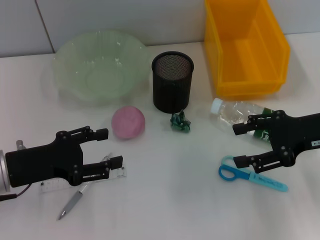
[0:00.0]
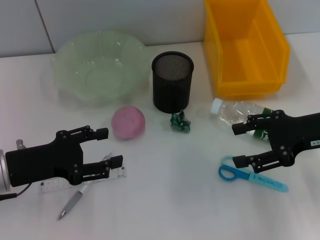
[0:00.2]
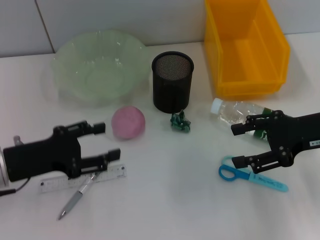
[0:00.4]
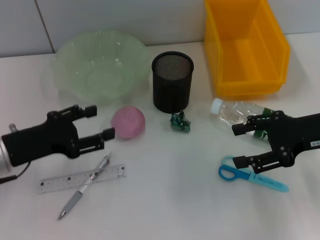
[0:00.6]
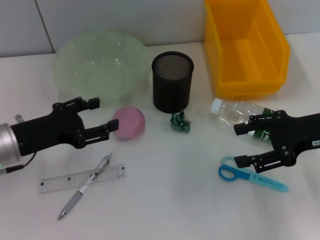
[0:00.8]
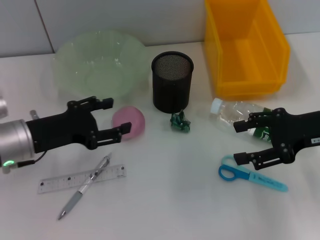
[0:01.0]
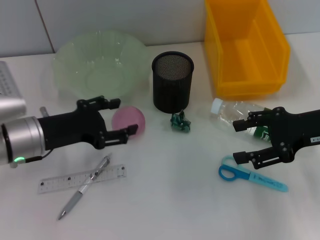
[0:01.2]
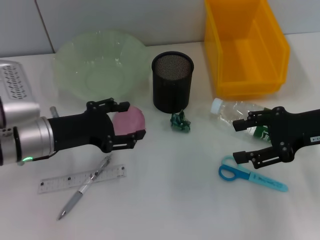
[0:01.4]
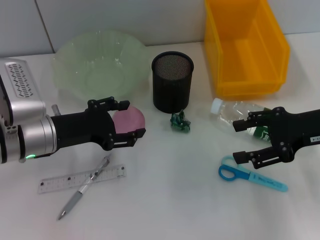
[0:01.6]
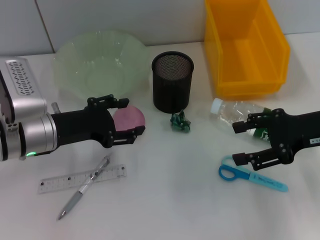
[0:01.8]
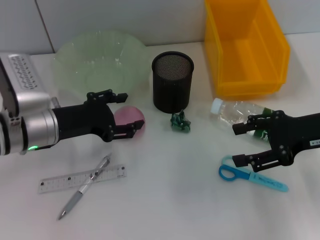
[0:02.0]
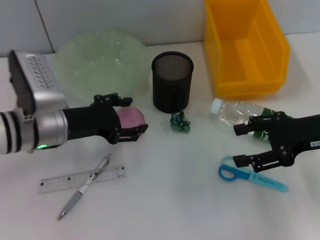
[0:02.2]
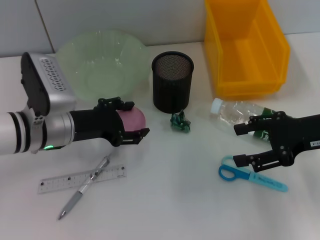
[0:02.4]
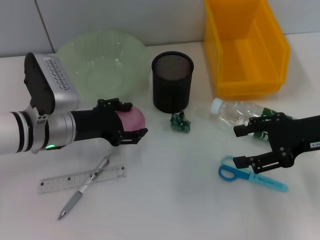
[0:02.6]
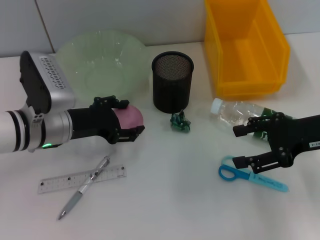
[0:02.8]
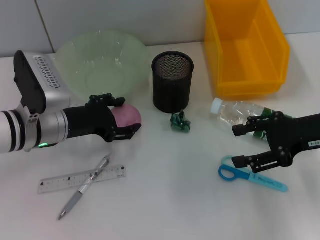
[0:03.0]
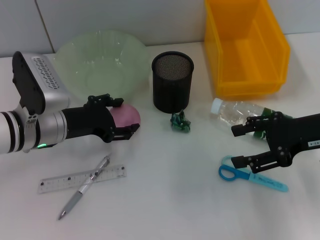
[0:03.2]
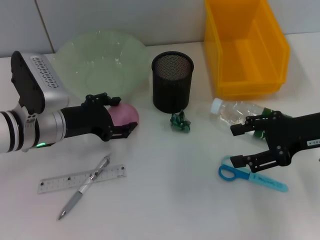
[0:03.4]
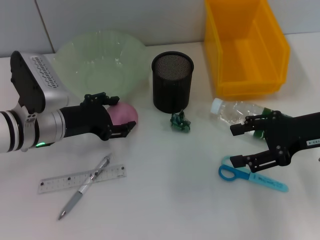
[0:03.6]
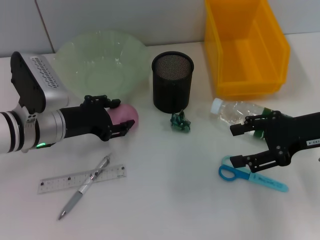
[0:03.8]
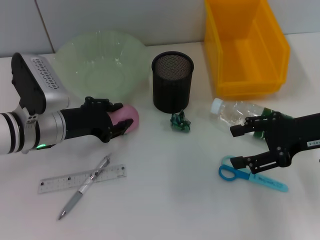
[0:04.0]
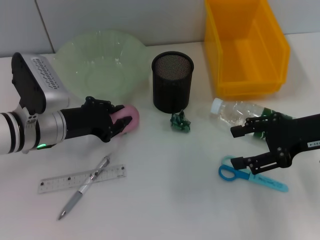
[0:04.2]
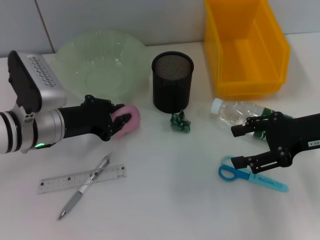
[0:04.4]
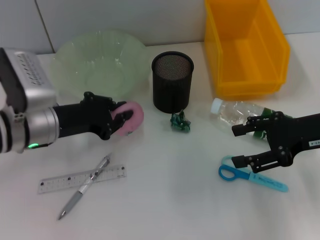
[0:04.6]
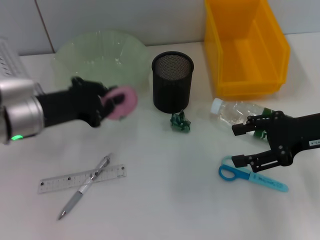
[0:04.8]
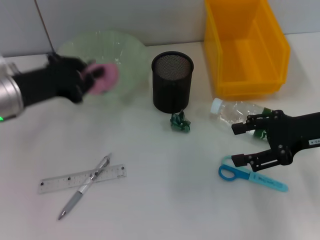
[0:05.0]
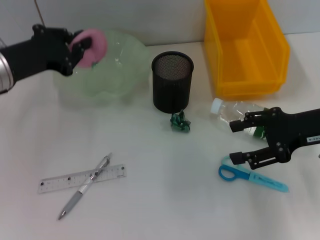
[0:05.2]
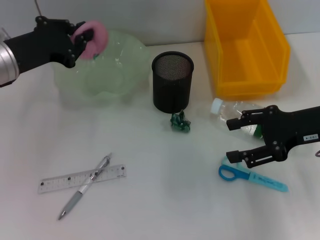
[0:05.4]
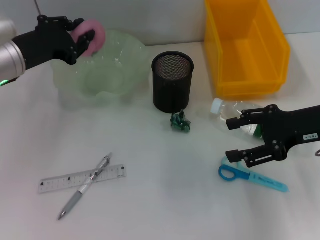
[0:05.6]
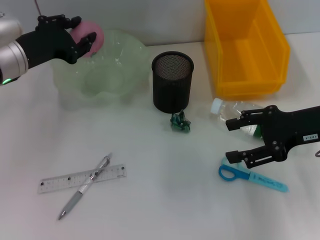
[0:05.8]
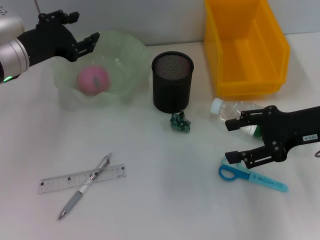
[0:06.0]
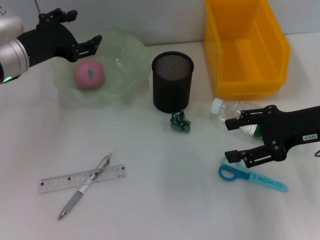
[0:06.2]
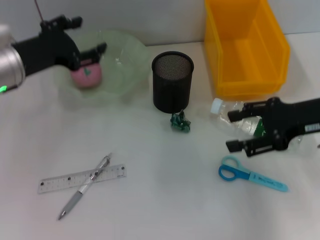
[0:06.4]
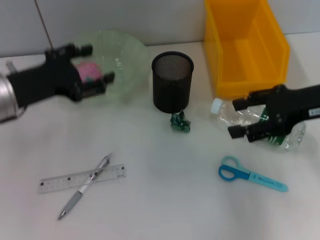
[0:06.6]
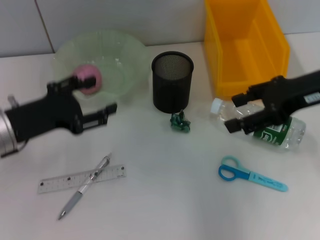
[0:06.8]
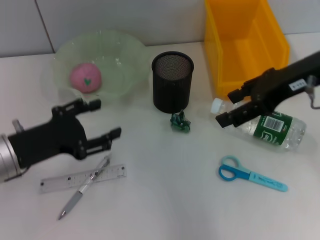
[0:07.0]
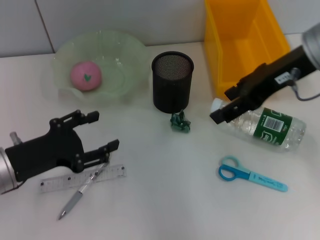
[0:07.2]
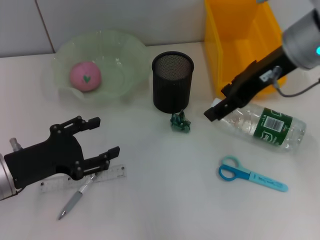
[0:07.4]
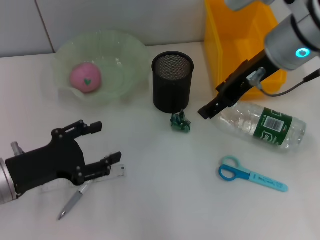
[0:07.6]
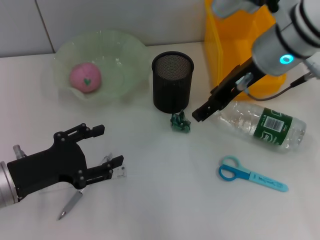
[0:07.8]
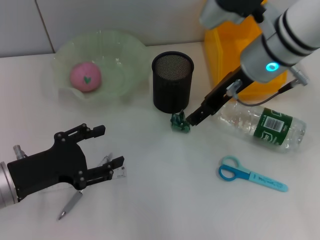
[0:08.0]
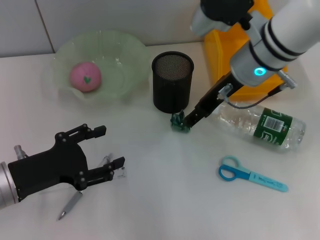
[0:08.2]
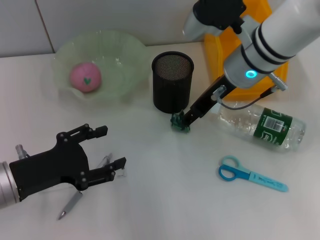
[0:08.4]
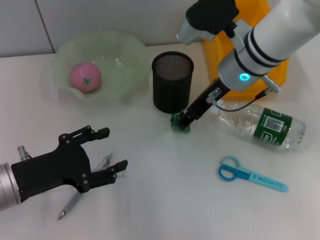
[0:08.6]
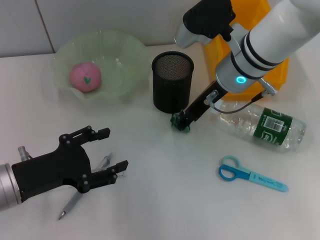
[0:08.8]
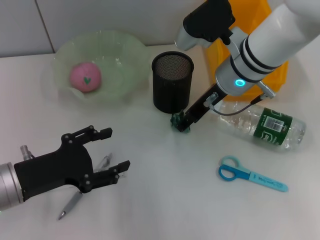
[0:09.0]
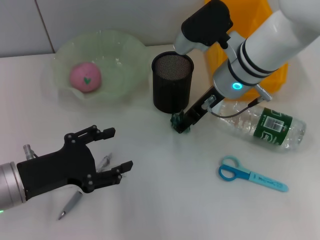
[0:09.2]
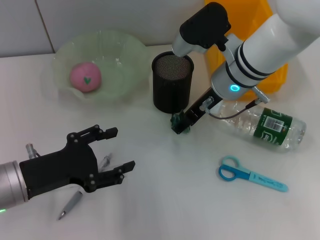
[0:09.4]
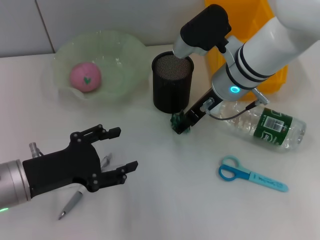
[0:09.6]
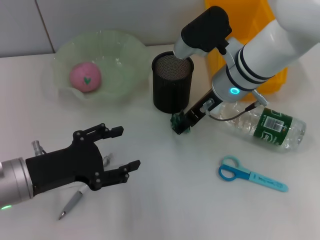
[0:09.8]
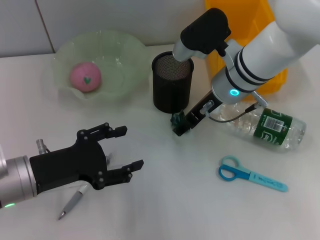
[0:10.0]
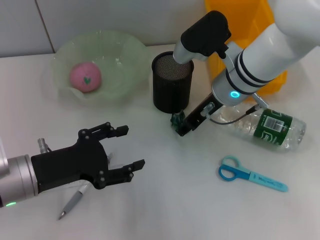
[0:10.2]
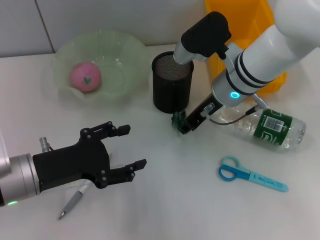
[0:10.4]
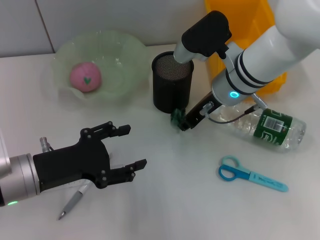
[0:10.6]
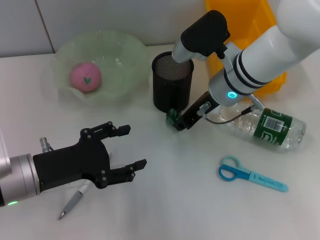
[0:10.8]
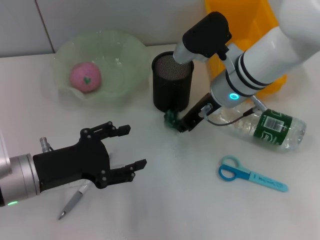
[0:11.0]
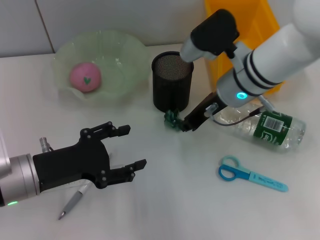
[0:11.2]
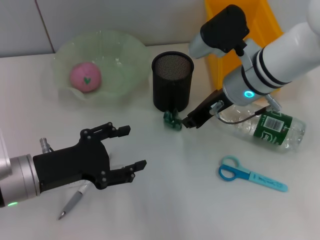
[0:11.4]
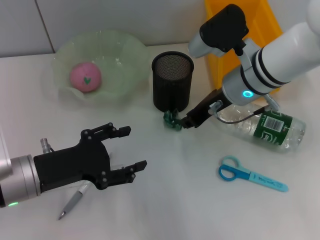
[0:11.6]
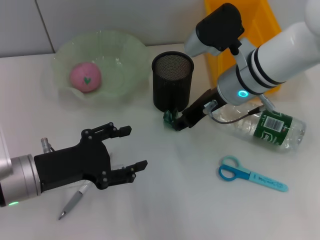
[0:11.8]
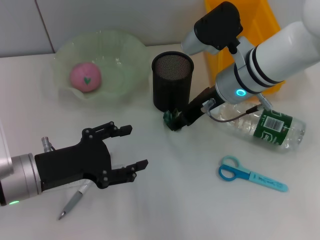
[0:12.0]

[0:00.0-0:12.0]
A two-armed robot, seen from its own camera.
Step, 0:00.0 to 0:04.2: Grab the peach with the left hand.
Step, 0:04.4 to 0:05.8: Place the peach into the fruit bowl with the left hand.
0:00.0 to 0:01.6: The left gripper moves forward and to the right, some 10 cm.
0:01.6 to 0:03.0: The grippers stay close to where they were, moving slightly.
0:03.0 to 0:04.4: The left gripper closes its fingers.
0:04.4 to 0:06.0: The left gripper goes some 10 cm upward and forward.
0:06.0 to 0:07.6: The right gripper moves to the left, upward and forward, roughly 15 cm, while the left gripper shifts approximately 15 cm backward and downward, and opens up.
0:07.6 to 0:09.0: The right gripper goes about 10 cm downward.
0:09.0 to 0:10.4: There are only small adjustments of the grippers.
0:10.4 to 0:12.0: The right gripper closes, then reopens.

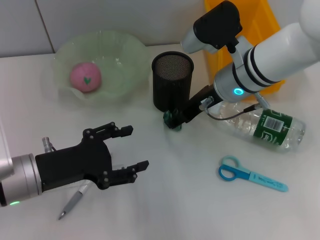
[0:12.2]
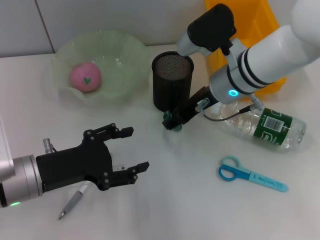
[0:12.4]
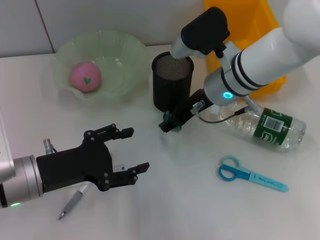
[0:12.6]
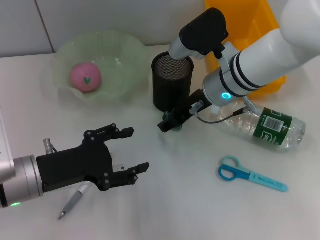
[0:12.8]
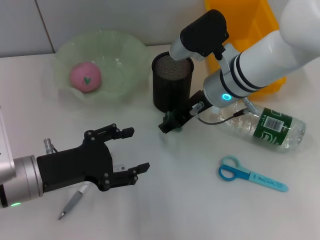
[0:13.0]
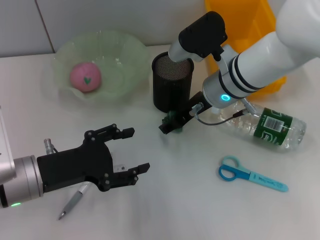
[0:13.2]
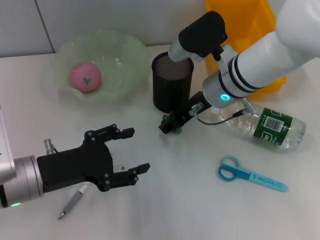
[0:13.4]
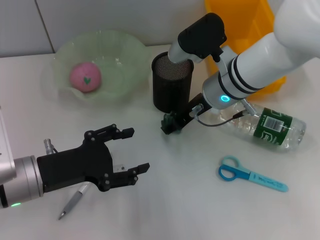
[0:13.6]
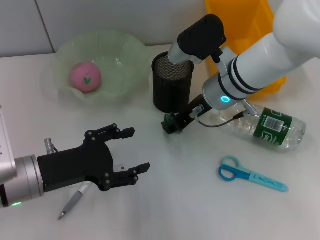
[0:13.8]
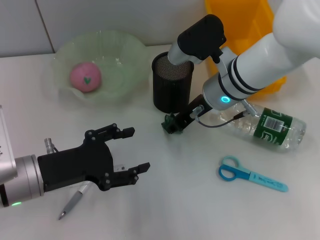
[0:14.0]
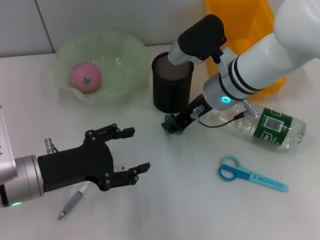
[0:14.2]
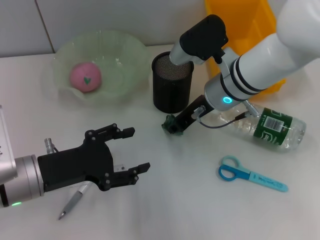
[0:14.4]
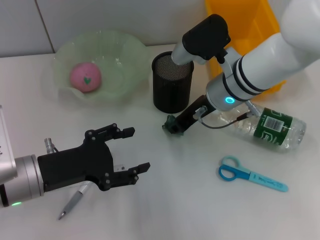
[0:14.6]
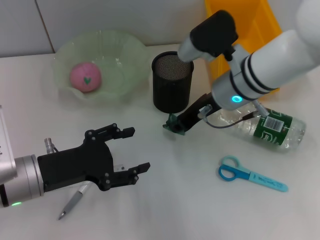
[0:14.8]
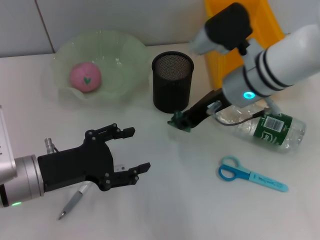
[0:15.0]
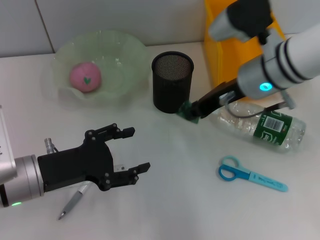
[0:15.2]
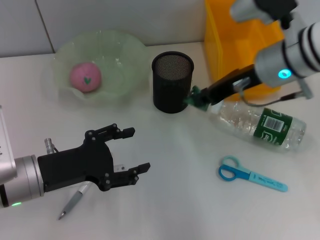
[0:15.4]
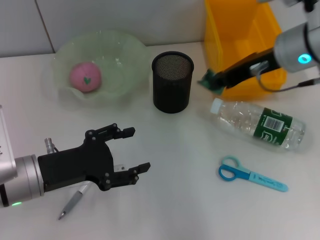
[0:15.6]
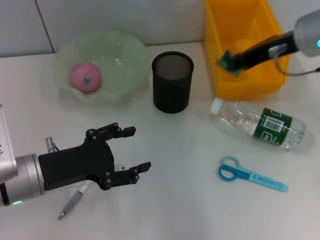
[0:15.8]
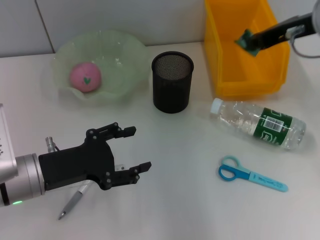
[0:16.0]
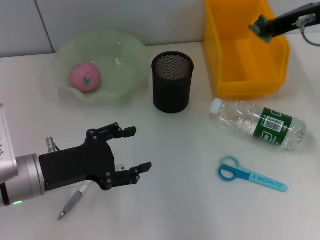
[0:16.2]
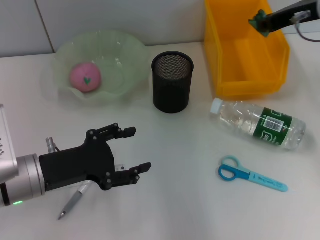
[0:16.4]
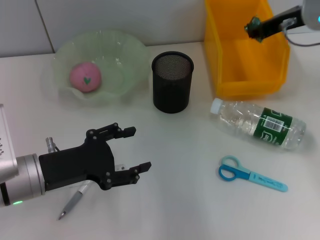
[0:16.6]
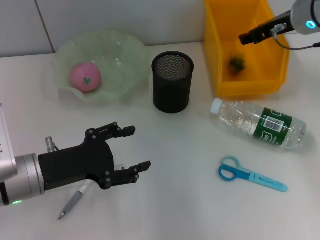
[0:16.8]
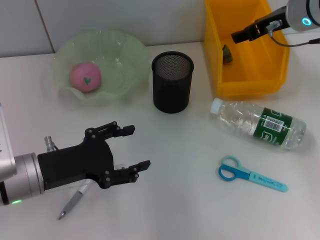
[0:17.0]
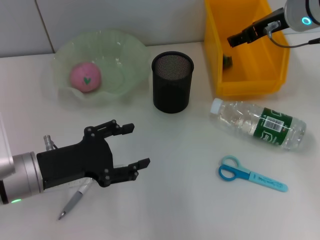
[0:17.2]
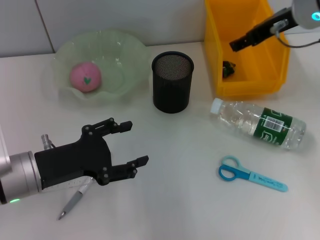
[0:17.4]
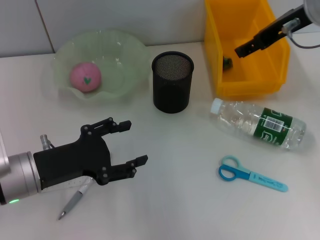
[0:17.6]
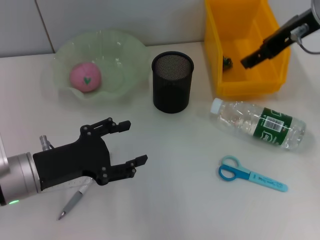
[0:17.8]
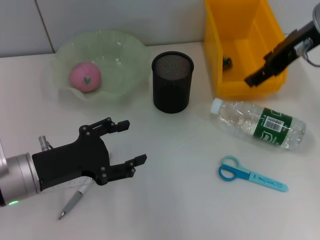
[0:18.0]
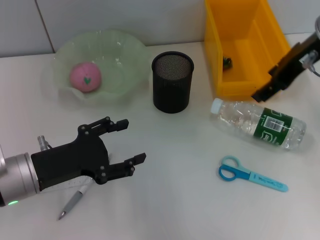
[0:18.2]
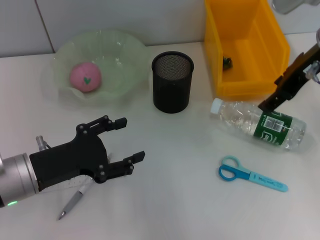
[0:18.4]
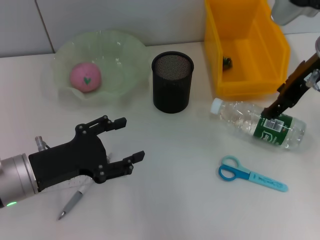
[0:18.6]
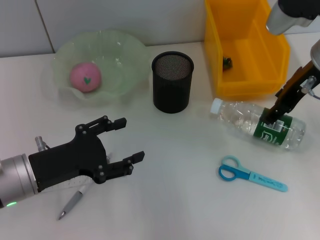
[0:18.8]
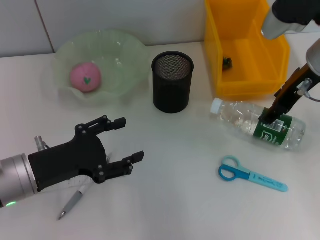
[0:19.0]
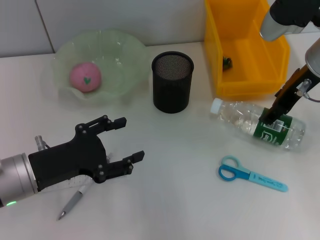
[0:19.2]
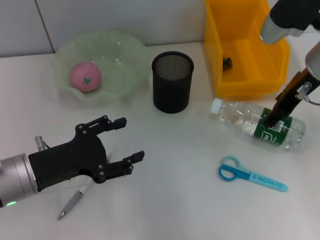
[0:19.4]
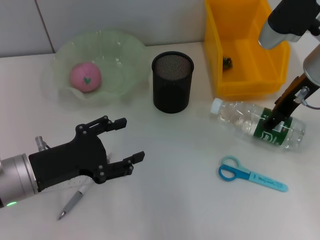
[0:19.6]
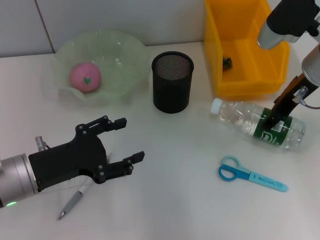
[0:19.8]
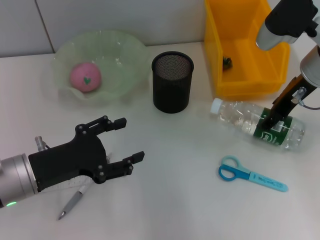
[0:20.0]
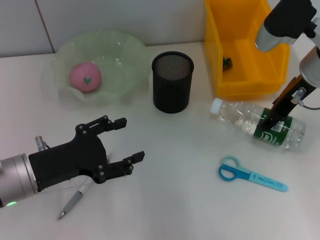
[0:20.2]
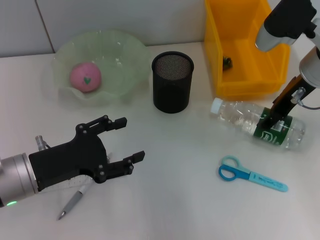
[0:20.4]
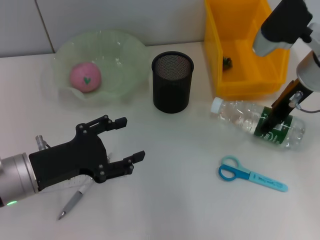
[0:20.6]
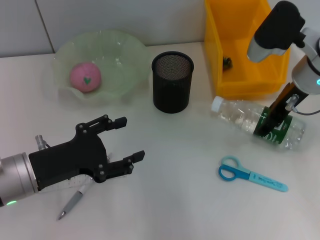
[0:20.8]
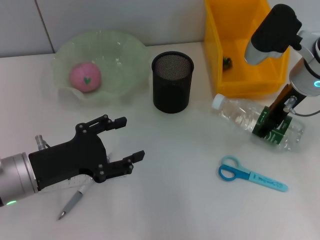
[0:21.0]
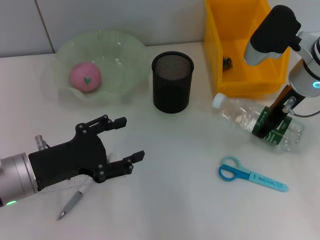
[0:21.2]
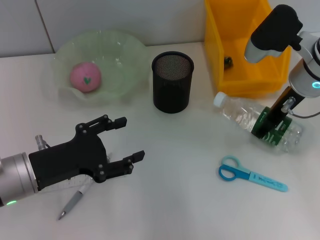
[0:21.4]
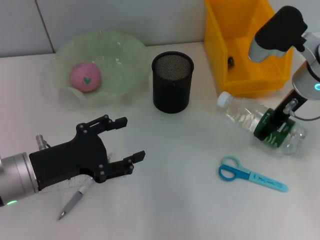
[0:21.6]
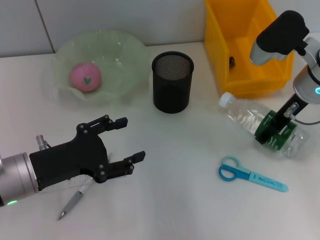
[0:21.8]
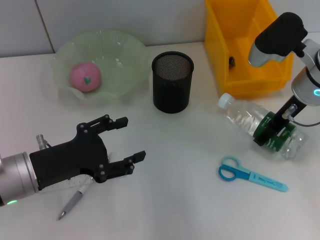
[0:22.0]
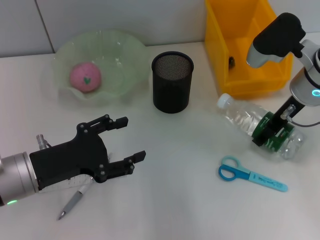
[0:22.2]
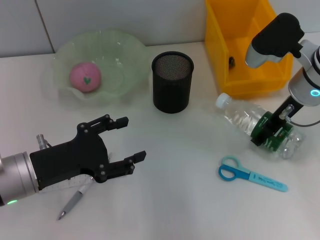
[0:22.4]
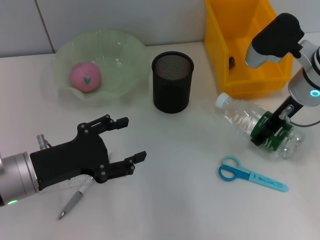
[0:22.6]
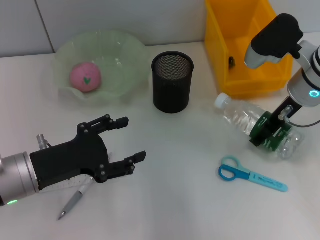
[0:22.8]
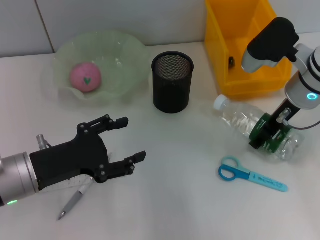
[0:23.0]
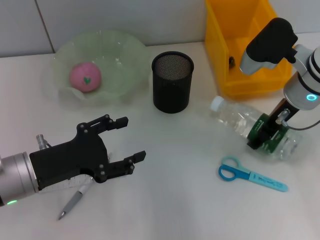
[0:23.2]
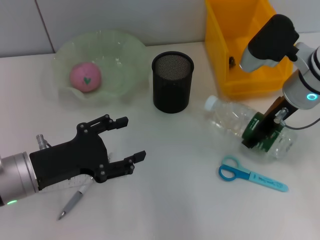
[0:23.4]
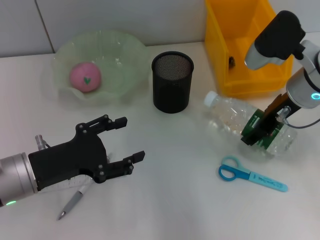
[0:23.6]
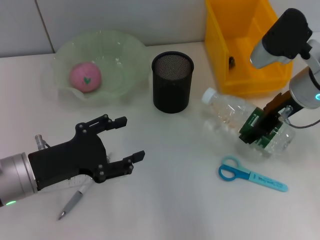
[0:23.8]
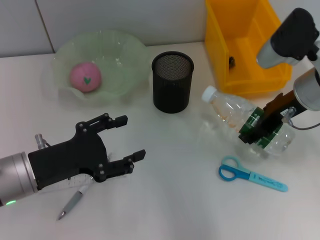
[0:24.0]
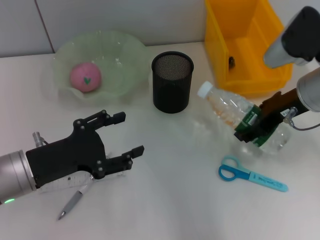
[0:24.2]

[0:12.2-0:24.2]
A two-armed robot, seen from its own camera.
Step, 0:12.2 to 0:14.2: Grab the plastic with the right hand.
Step, 0:14.4 to 0:16.8: Place the plastic into the trash can with the right hand.
Step, 0:17.2 to 0:21.8: Grab the water bottle with the right hand.
0:12.2 to 0:13.8: The grippers stay close to where they were, moving slightly.
0:13.8 to 0:15.2: The right gripper ends up some 5 cm from where it was, and closes up.
0:15.2 to 0:16.6: The right gripper goes approximately 10 cm to the right and forward.
0:16.6 to 0:18.2: The right gripper is displaced backward by about 5 cm, and opens its fingers.
0:18.2 to 0:19.8: The right gripper moves downward, about 5 cm.
0:19.8 to 0:24.2: The grippers make only small movements.
